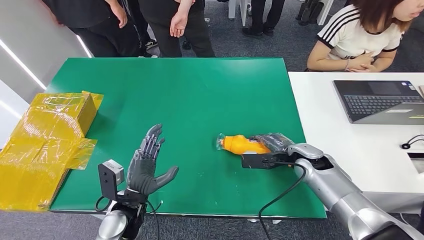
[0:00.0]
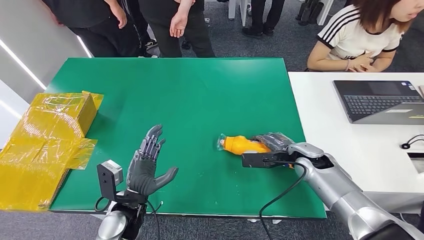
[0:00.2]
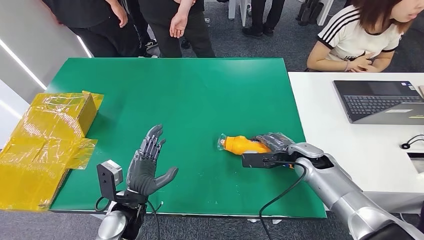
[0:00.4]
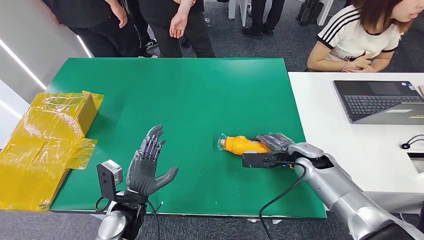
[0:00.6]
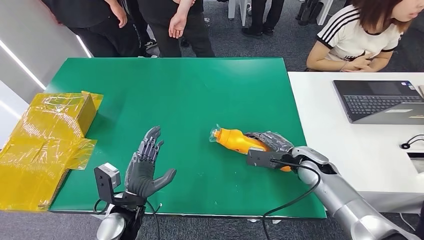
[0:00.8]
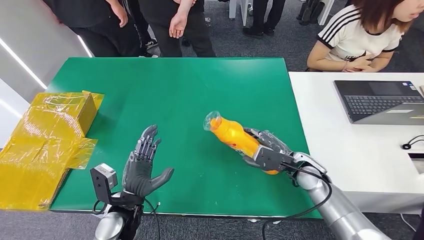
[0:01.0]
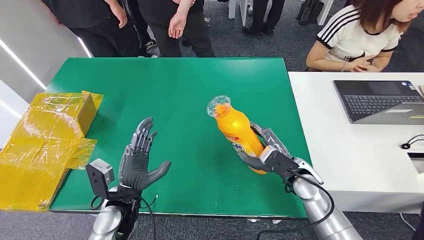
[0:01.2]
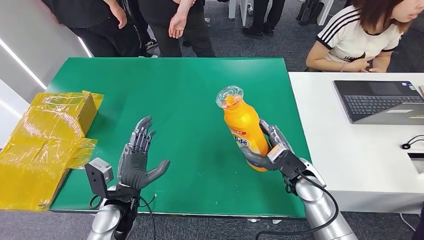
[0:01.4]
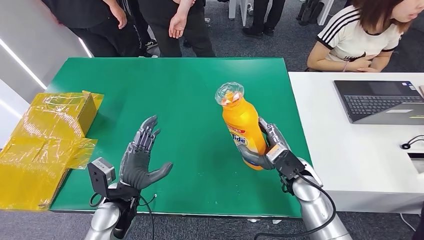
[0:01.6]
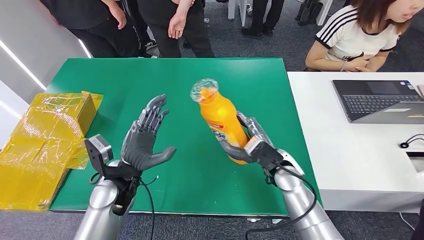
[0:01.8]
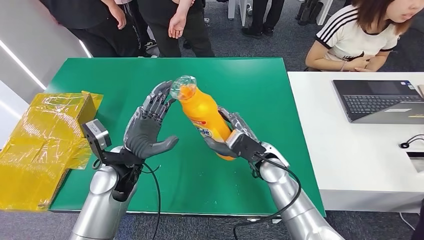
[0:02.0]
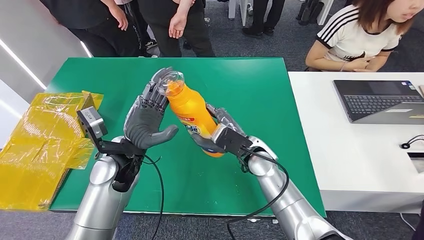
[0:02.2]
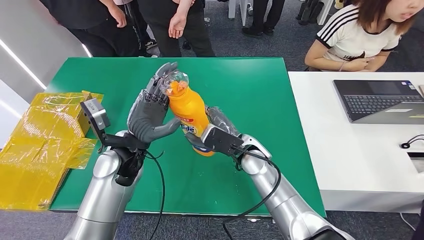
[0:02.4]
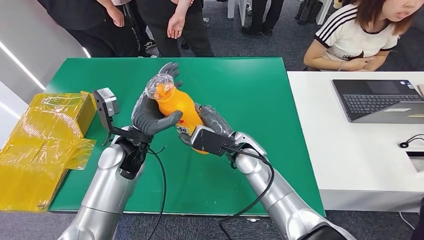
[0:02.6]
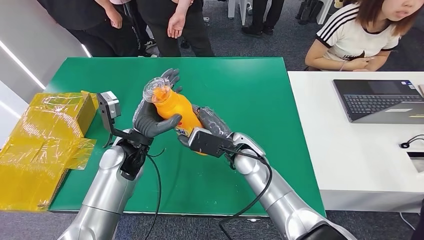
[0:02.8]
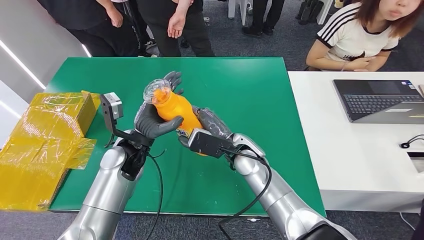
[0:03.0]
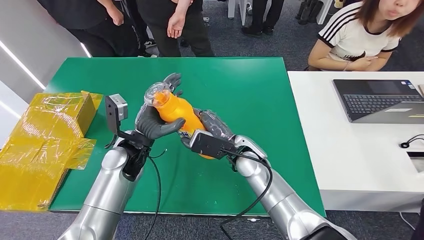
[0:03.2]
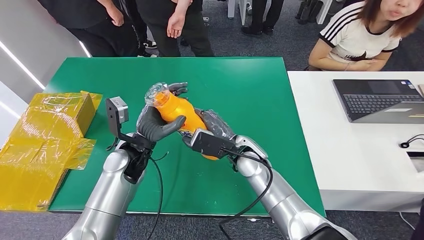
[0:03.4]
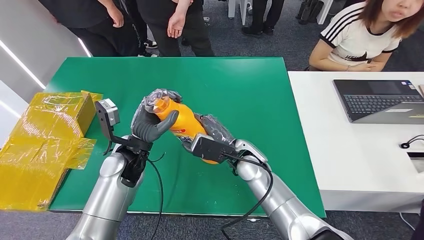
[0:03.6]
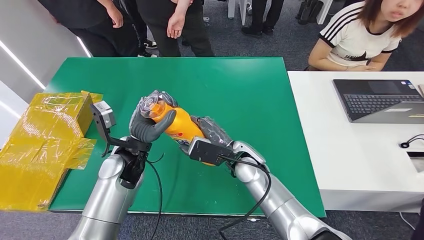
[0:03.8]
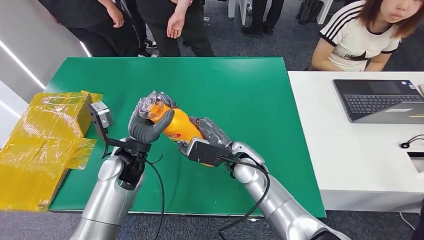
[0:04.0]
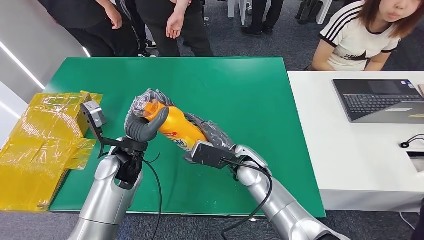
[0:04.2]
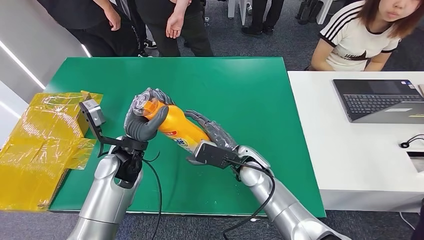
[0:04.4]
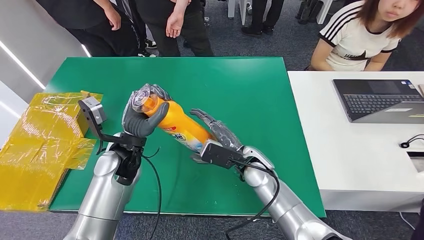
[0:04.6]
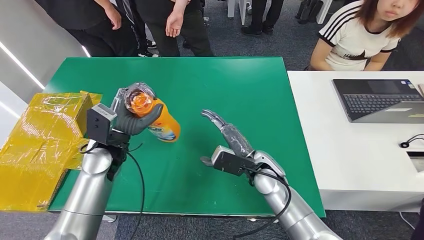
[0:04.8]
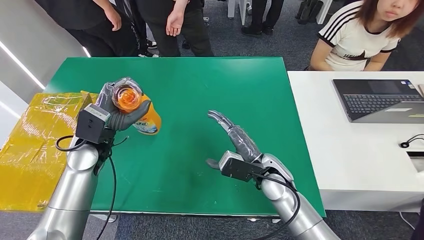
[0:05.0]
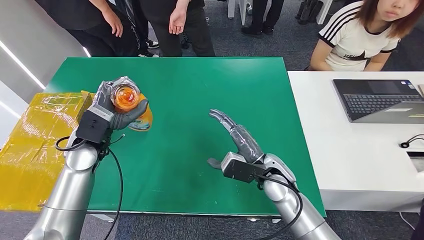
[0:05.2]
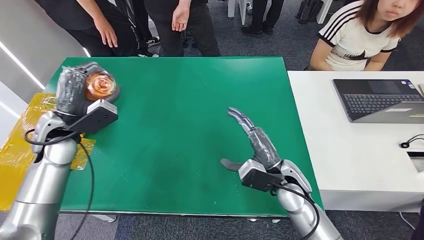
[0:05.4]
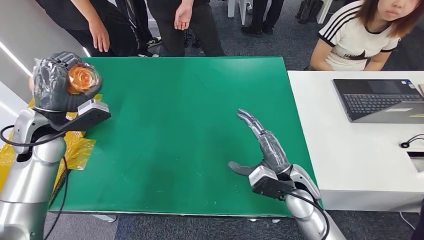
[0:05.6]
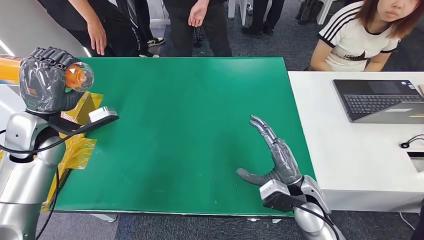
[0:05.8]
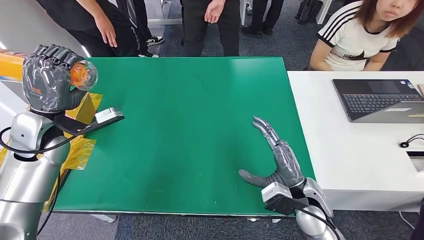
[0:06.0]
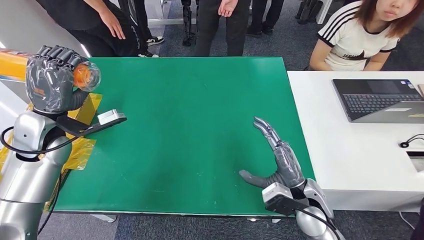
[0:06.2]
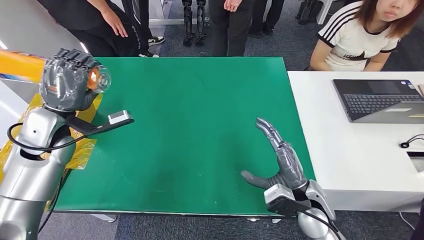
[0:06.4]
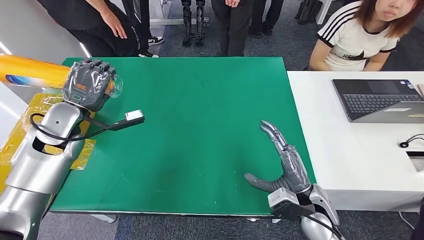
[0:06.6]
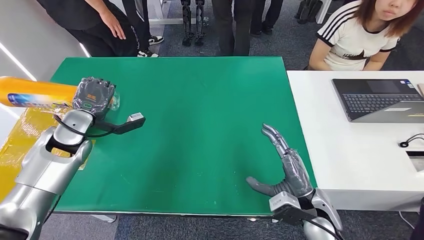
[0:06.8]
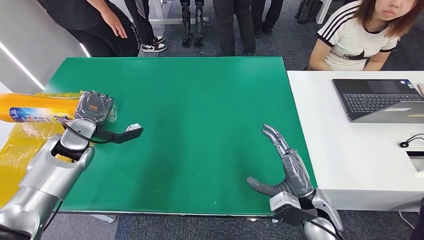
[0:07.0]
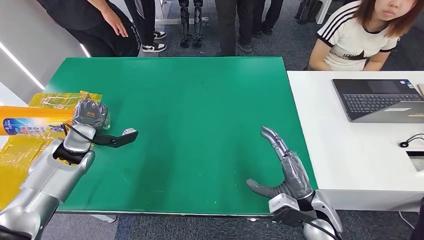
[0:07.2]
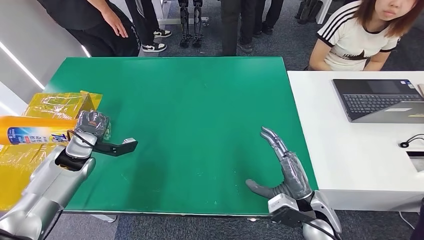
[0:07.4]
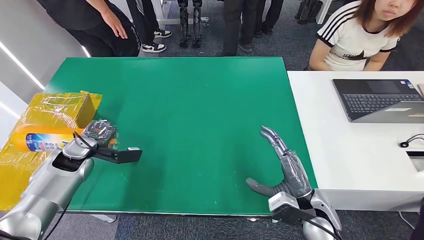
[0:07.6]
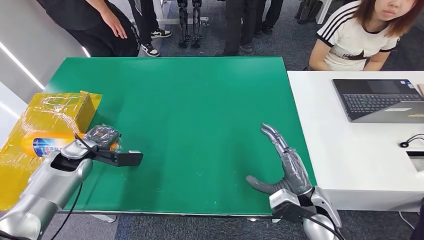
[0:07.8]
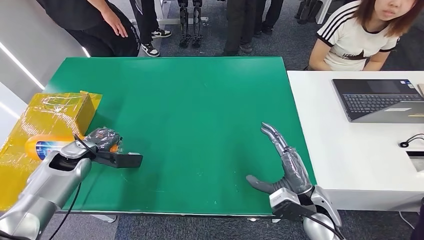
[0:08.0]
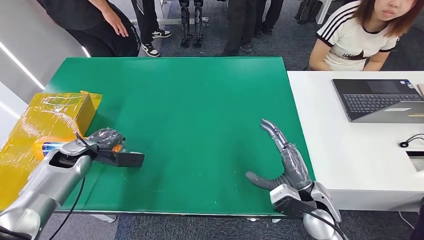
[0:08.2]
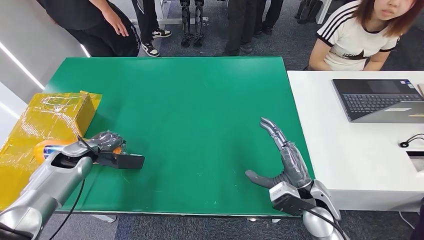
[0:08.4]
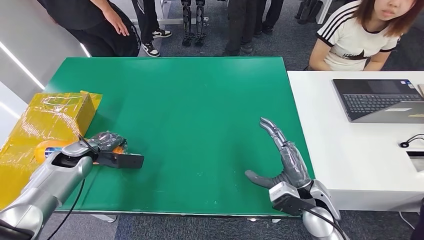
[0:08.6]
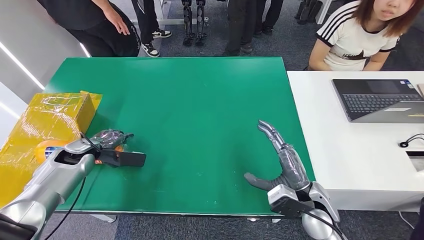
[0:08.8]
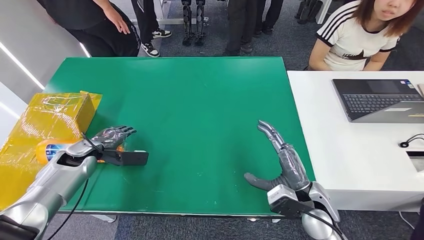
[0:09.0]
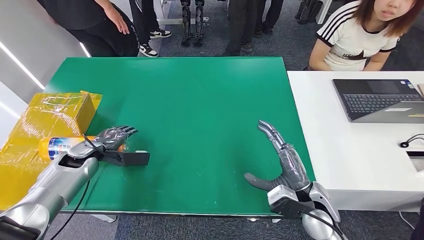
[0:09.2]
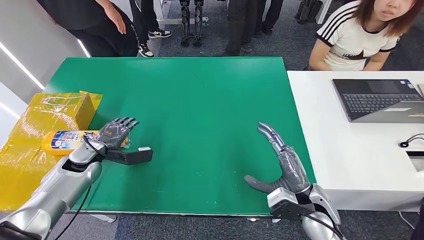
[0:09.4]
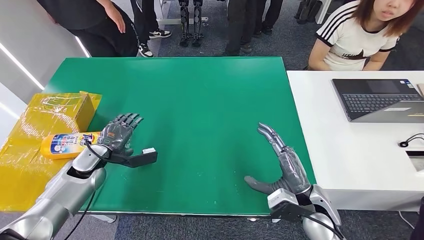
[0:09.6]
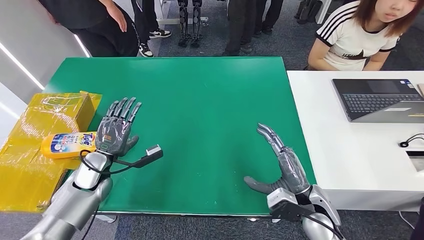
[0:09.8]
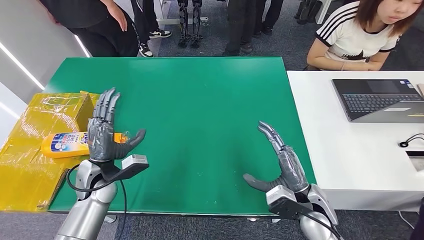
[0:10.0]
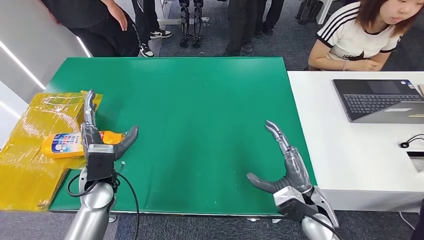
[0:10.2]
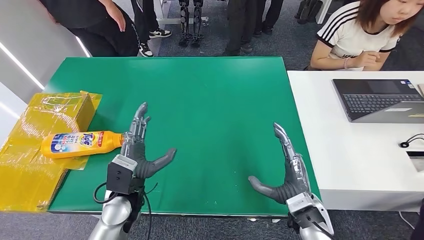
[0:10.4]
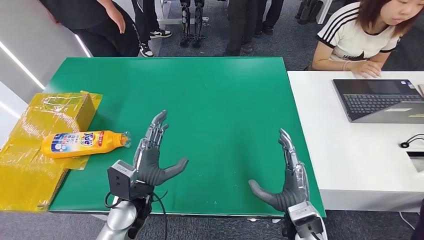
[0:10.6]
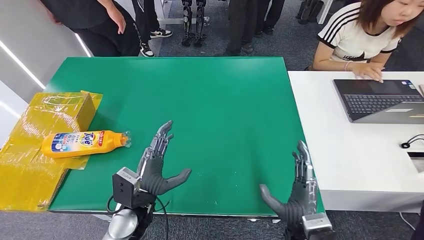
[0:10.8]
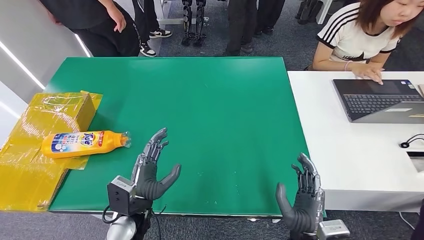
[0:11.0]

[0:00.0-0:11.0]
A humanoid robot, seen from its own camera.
Step, 0:00.0 to 0:02.2: Pick up the bottle from the table.
Step, 0:03.2 to 0:11.0: Turn the bottle to the front side.
0:00.0 to 0:01.6: The right hand moves backward and to the left, roughly 10 cm.
0:03.2 to 0:04.8: The right hand shifts by roughly 5 cm.
0:07.8 to 0:09.4: The hands make only small movements.
0:09.4 to 0:11.0: The left hand travels to the right and backward by about 25 cm; the right hand shifts about 10 cm backward.
